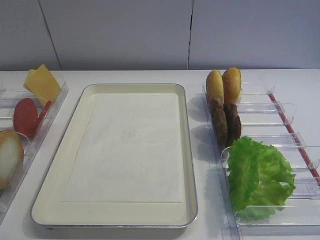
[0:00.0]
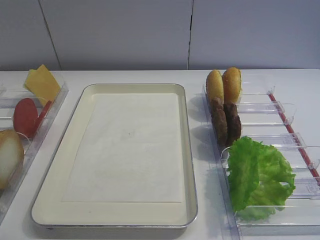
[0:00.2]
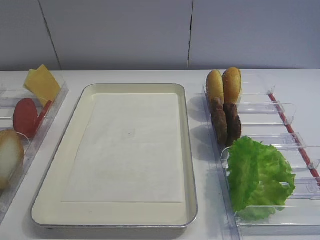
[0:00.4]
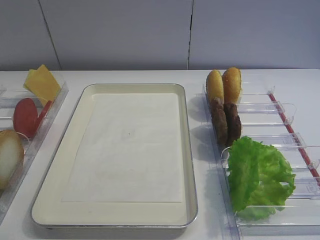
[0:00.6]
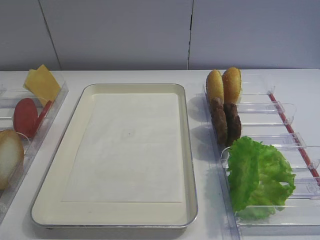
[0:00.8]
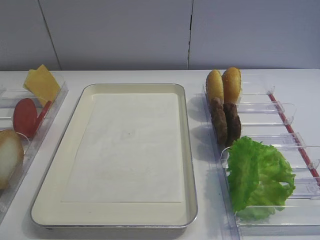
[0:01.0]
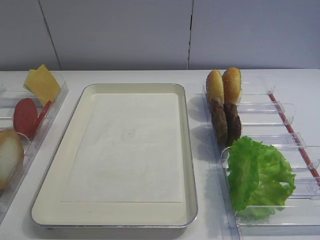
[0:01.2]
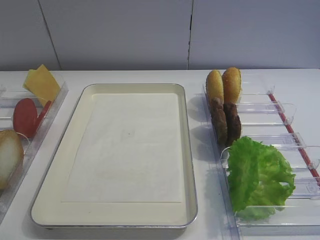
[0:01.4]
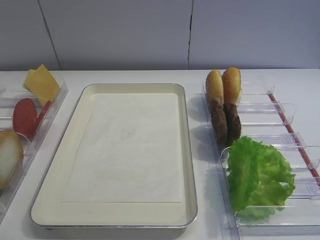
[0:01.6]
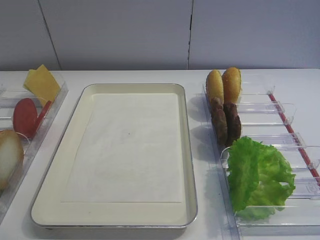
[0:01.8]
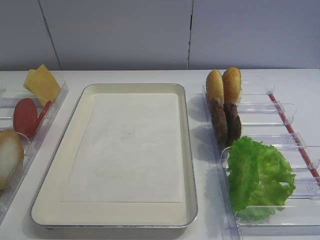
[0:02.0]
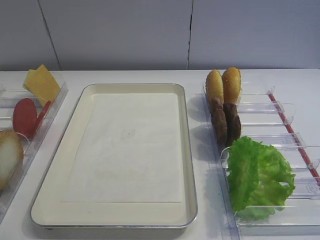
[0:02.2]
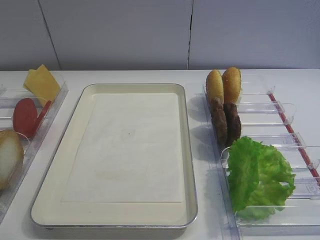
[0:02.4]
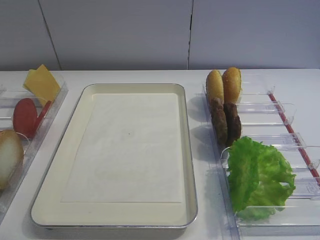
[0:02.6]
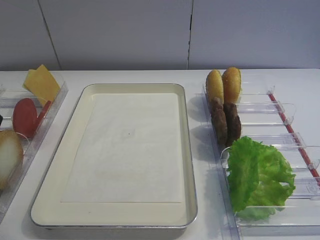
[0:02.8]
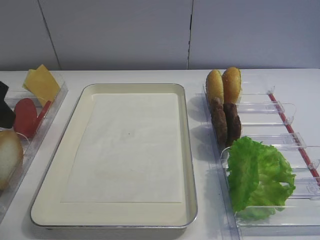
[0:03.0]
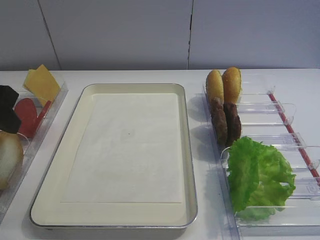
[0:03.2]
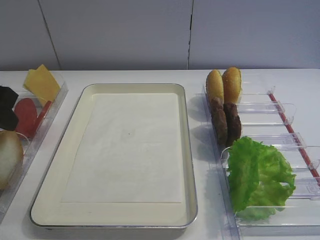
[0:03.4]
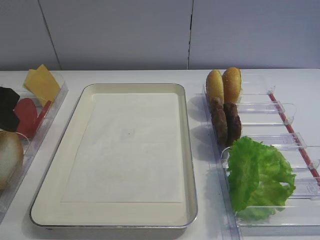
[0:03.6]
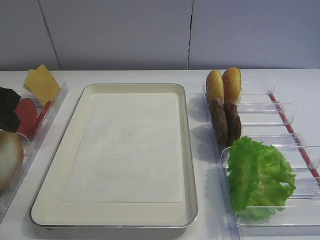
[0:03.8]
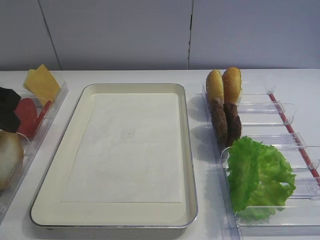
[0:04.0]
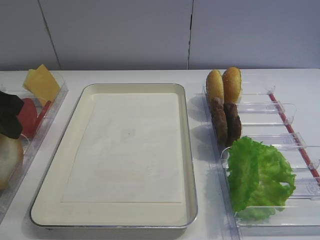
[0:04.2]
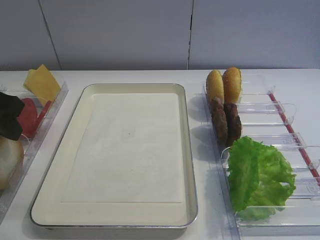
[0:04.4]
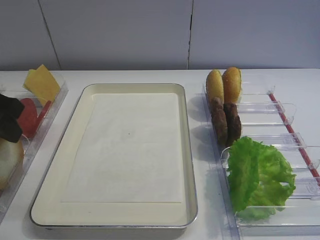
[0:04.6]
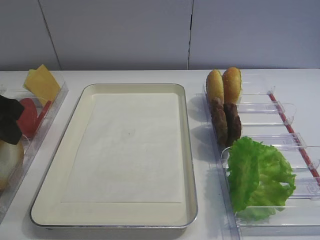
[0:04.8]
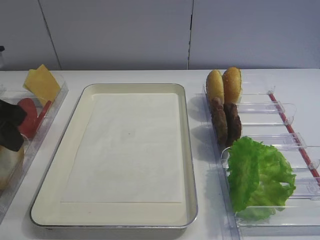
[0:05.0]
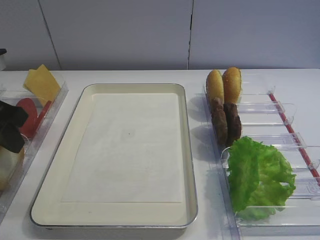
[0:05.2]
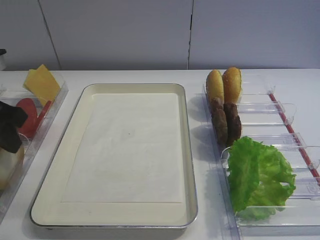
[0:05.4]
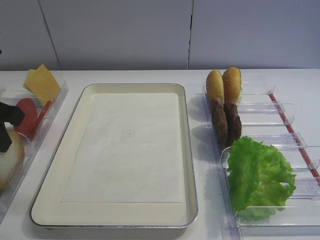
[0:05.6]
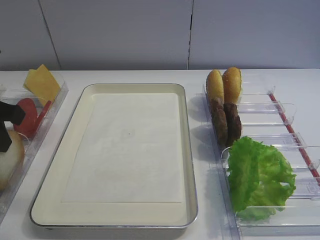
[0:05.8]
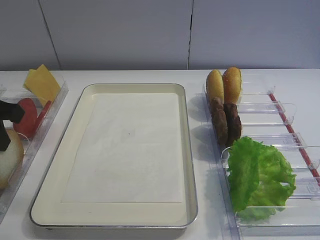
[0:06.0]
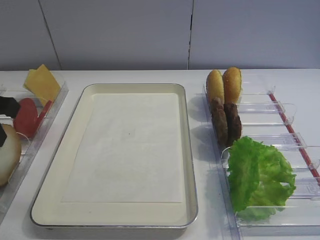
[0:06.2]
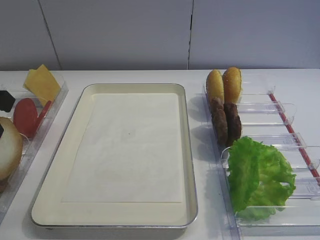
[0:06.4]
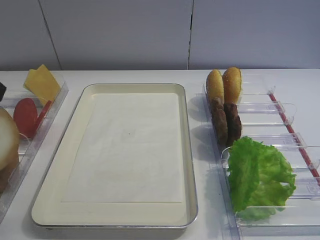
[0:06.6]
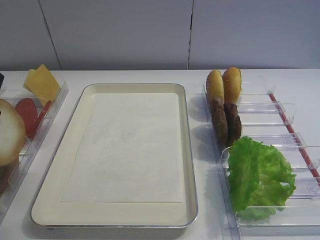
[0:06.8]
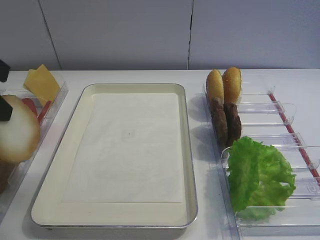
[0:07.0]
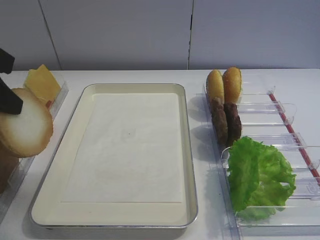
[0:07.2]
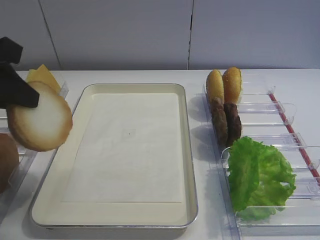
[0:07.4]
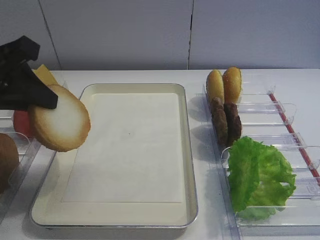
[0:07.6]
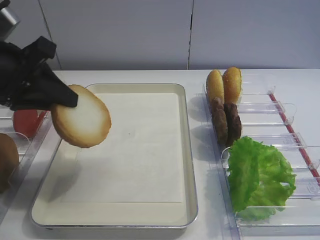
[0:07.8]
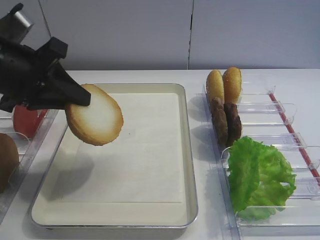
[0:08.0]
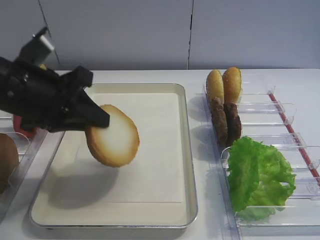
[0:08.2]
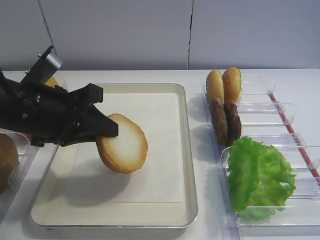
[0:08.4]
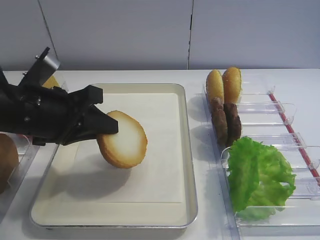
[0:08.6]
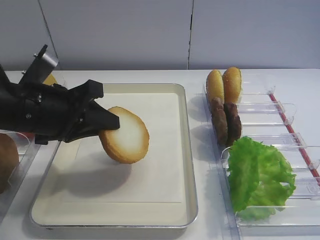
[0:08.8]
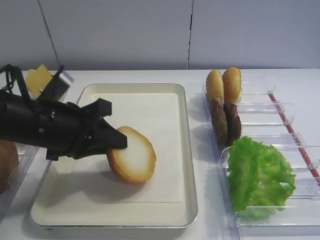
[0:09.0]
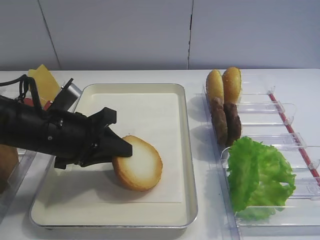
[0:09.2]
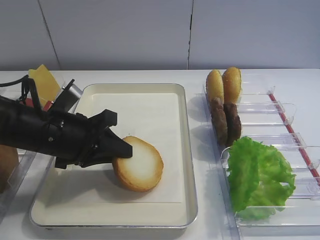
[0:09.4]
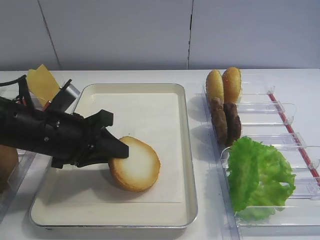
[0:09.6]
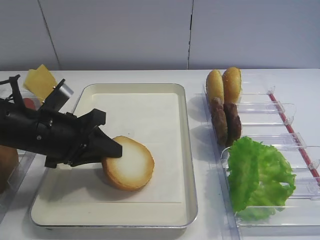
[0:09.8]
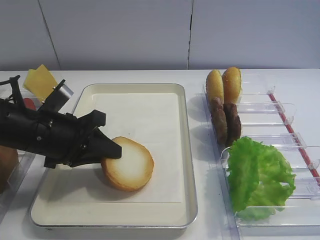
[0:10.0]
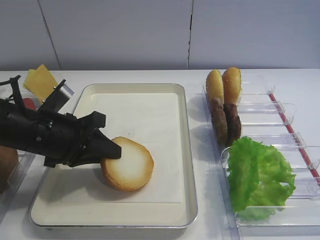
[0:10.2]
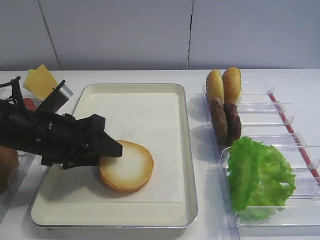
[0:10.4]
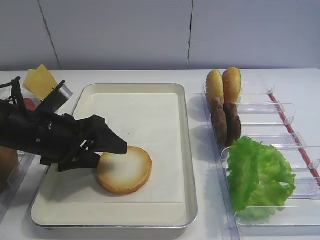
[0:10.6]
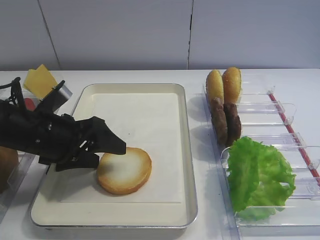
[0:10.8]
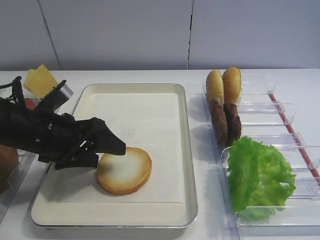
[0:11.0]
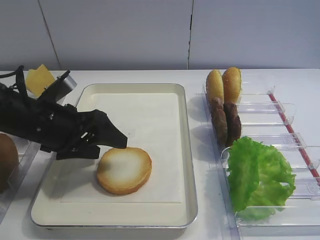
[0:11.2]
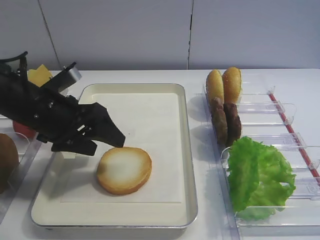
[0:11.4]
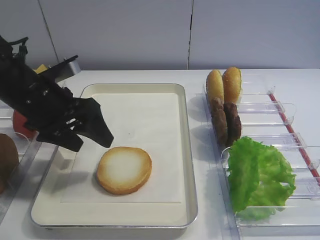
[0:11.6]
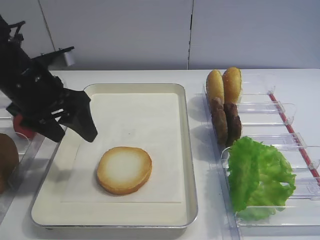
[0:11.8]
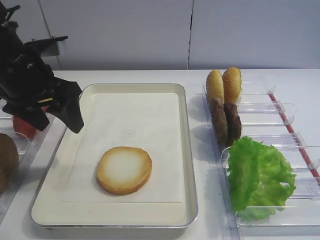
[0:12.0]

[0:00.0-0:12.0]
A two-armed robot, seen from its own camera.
Step, 0:00.0 to 0:06.6: Pick up the bread slice with the left gripper.
Step, 0:07.0 to 0:11.4: Place the bread slice on the tray with the left gripper.
0:03.0 to 0:04.4: The grippers stay close to where they were, moving slightly.
0:04.4 to 0:06.0: The left gripper closes.
0:06.0 to 0:07.6: The left gripper changes place by approximately 5 cm.
0:07.6 to 0:09.0: The left gripper shifts some 15 cm downward and to the right.
0:09.0 to 0:10.4: The left gripper opens its fingers.
0:10.4 to 0:12.0: The left gripper is displaced upward by roughly 10 cm, and opens.

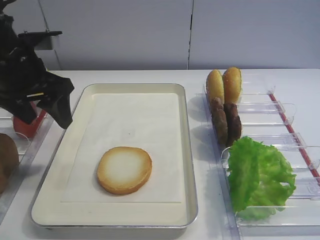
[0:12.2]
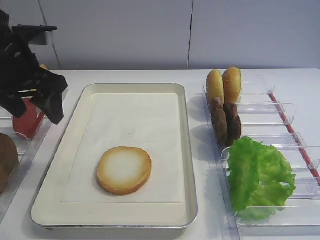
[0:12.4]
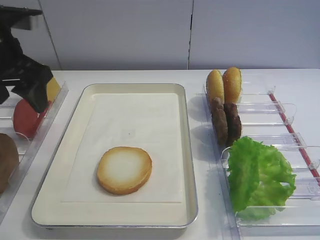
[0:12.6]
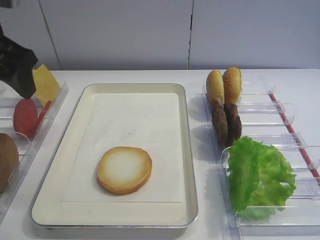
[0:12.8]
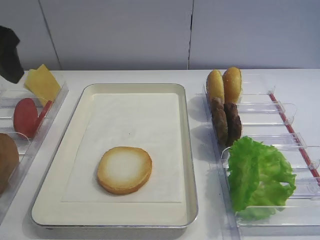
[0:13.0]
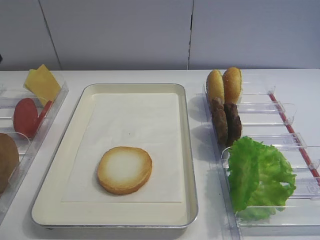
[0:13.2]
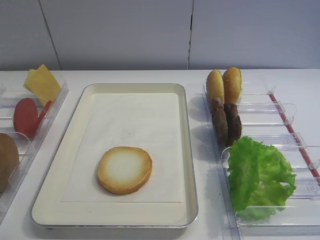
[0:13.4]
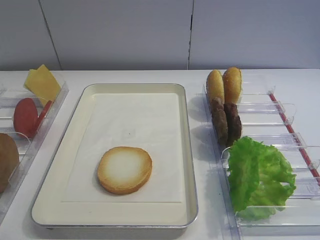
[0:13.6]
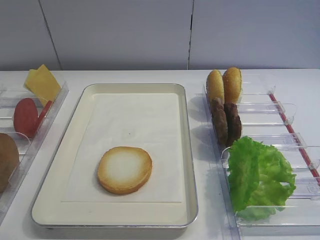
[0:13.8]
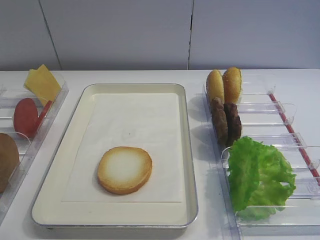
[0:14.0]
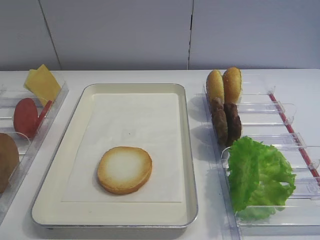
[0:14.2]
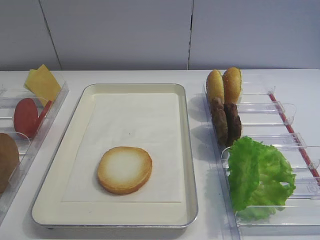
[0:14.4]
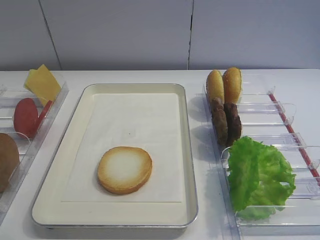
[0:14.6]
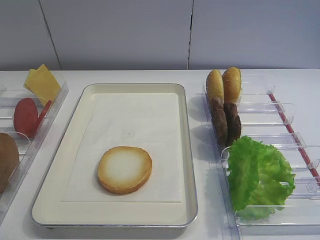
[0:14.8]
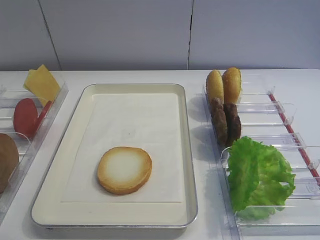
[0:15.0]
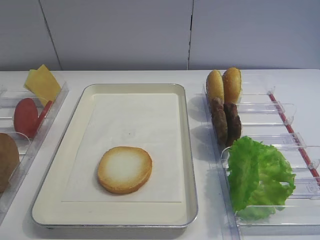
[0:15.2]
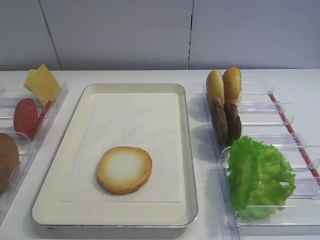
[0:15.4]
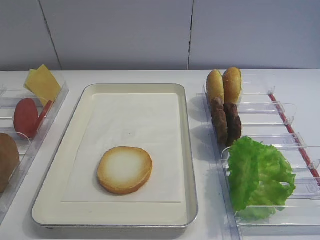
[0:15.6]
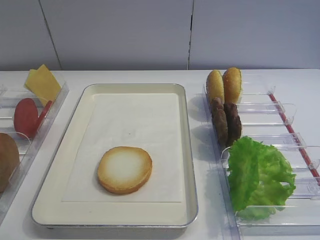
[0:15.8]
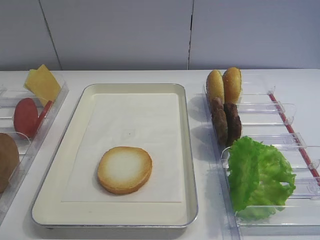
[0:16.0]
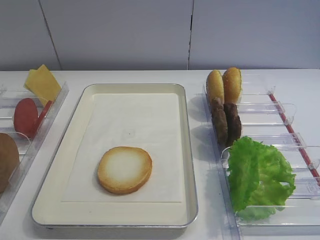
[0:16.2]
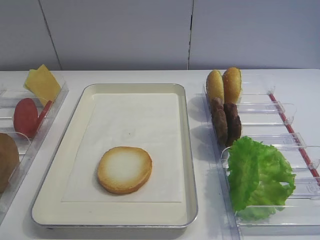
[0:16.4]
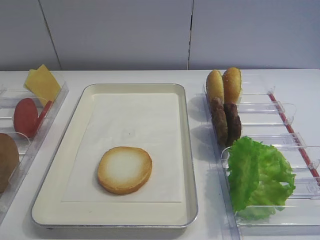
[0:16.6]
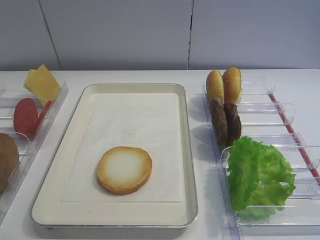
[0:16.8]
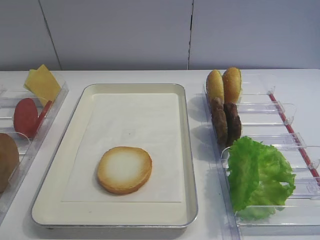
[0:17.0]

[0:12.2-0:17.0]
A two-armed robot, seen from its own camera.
0:12.2 to 0:13.8: The left gripper shifts approximately 25 cm backward.

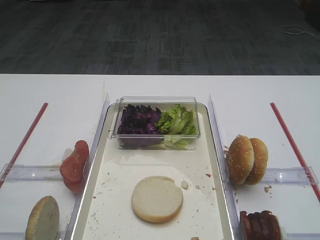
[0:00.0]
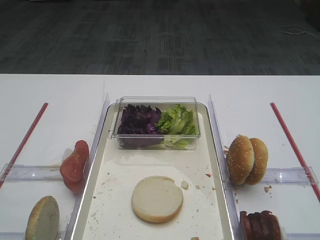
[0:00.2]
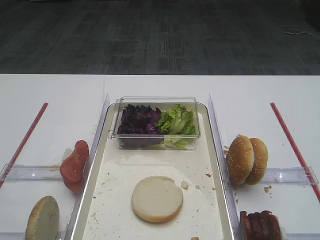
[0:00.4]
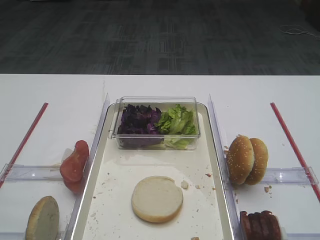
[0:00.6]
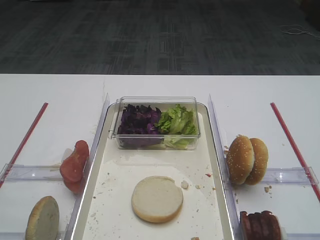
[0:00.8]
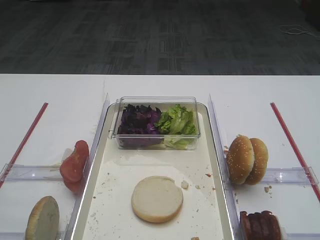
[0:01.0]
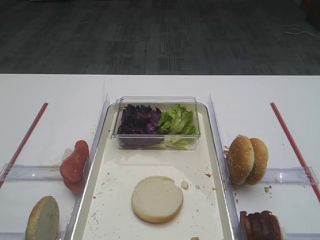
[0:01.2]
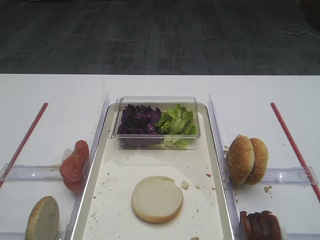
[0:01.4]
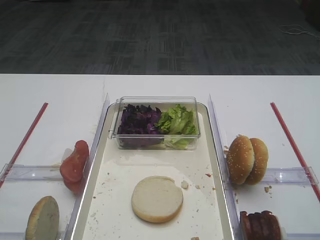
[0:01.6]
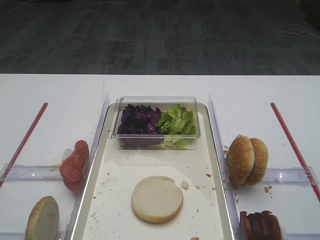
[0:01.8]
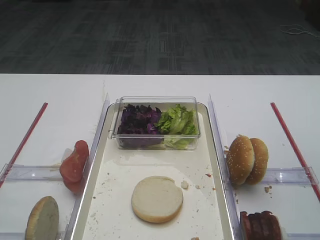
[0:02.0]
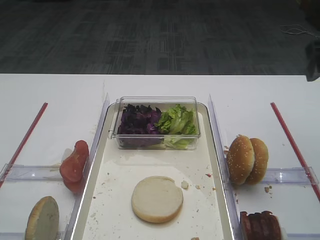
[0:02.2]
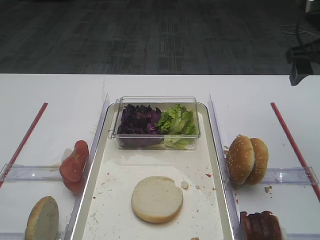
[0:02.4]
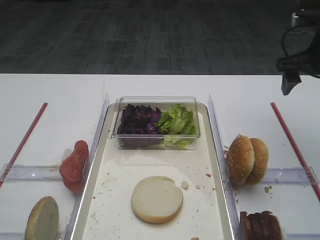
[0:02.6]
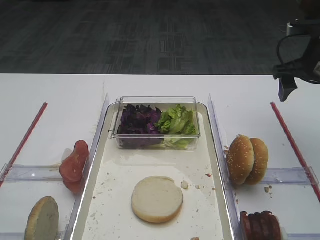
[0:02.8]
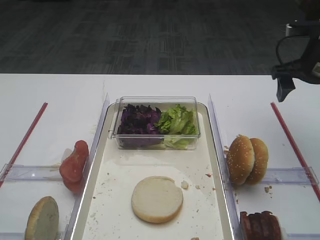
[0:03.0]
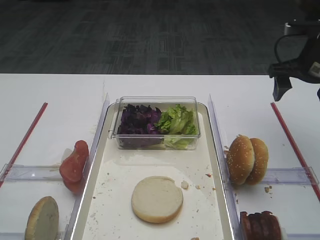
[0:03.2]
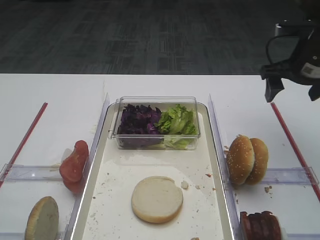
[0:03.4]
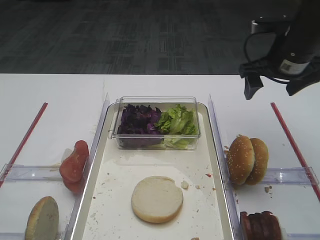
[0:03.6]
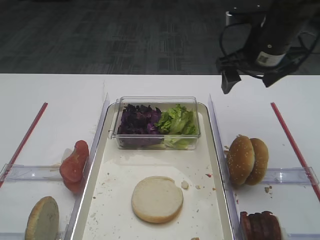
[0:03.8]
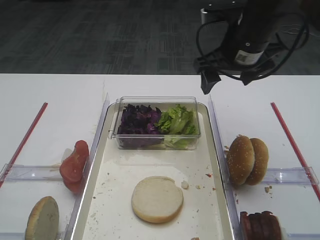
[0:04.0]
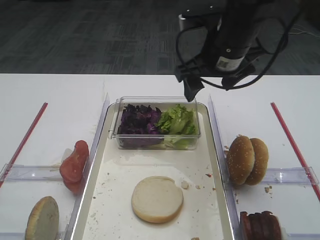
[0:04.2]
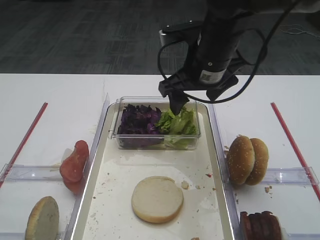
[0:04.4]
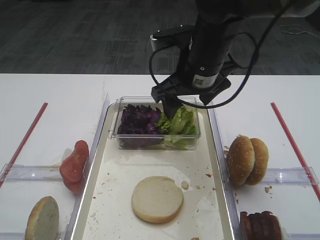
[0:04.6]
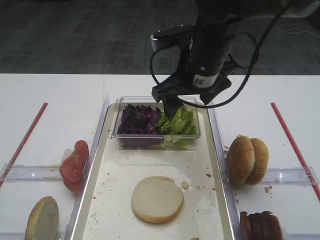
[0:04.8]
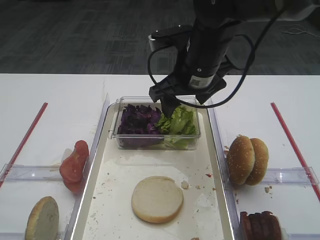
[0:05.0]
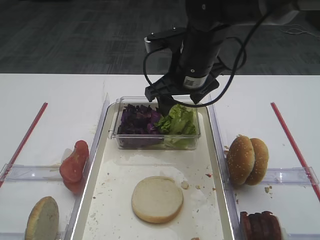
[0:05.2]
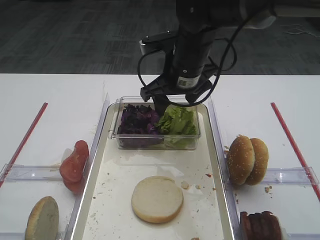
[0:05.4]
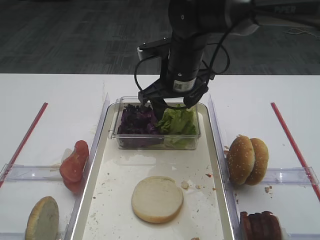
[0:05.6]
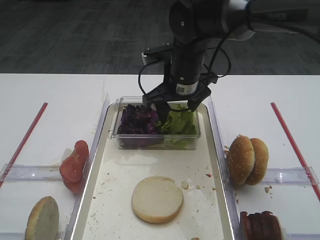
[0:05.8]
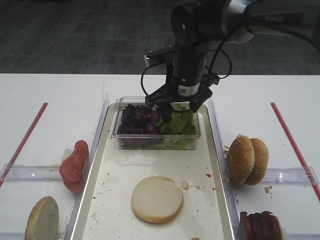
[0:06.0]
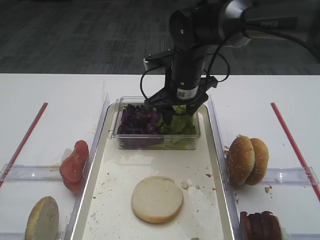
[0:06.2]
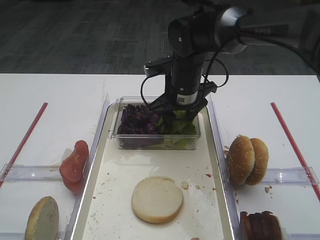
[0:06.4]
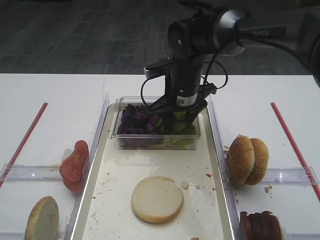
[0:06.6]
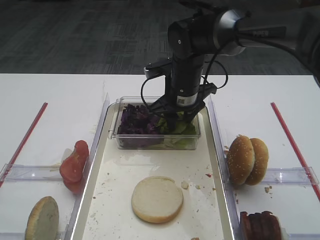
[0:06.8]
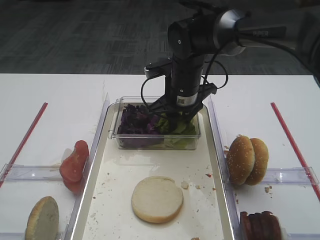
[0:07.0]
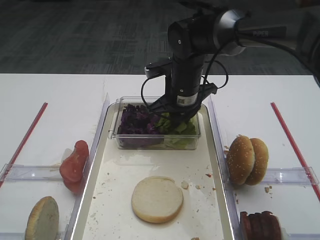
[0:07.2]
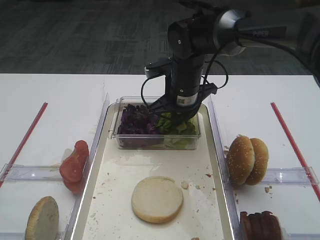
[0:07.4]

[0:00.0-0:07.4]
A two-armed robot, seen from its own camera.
0:01.4 to 0:03.0: The right gripper shifts approximately 35 cm forward.
0:03.0 to 0:04.4: The right gripper is displaced to the left by approximately 20 cm.
0:04.4 to 0:06.0: The right gripper is displaced downward and forward by approximately 10 cm.
0:06.0 to 0:07.4: The right gripper closes up.
